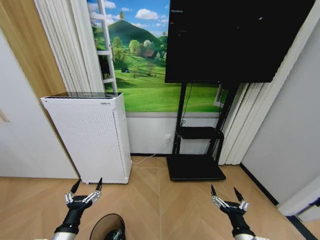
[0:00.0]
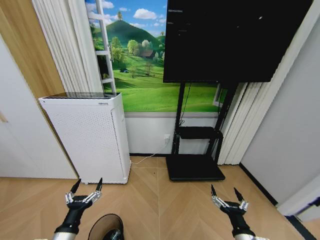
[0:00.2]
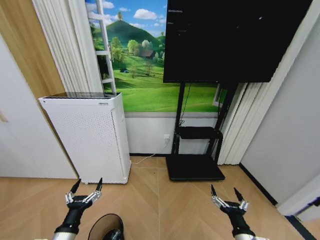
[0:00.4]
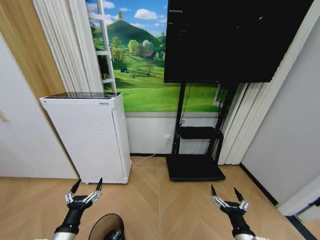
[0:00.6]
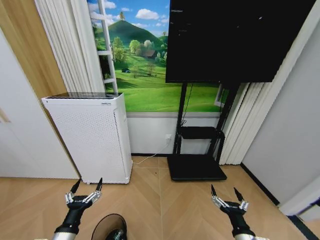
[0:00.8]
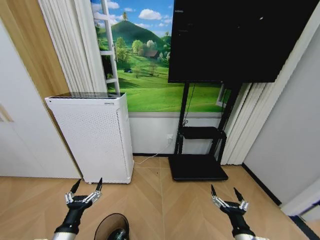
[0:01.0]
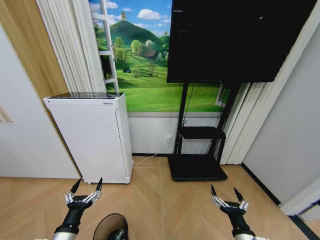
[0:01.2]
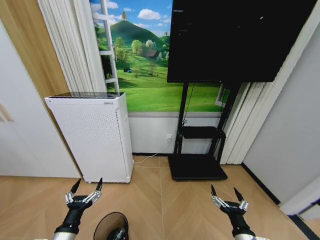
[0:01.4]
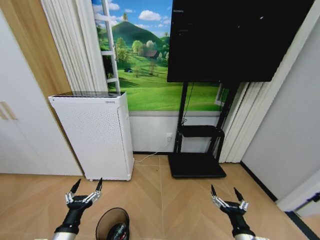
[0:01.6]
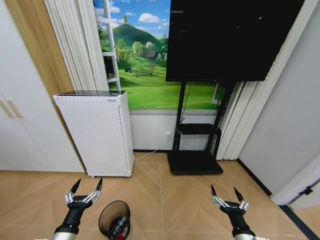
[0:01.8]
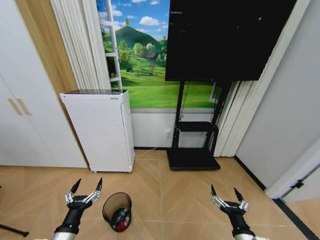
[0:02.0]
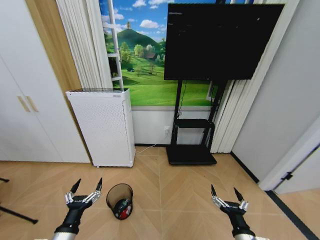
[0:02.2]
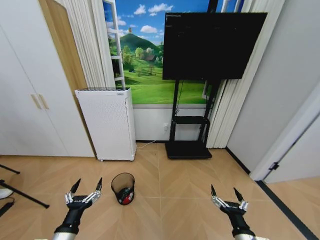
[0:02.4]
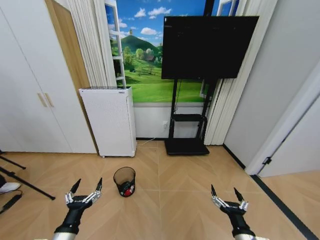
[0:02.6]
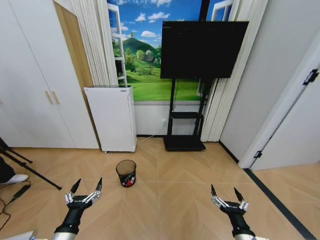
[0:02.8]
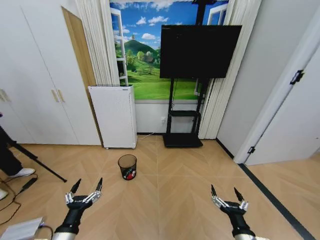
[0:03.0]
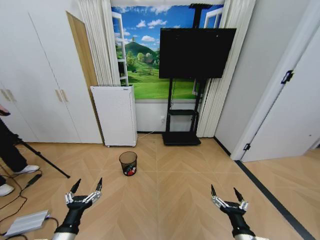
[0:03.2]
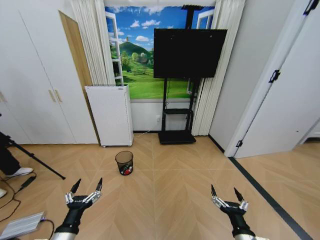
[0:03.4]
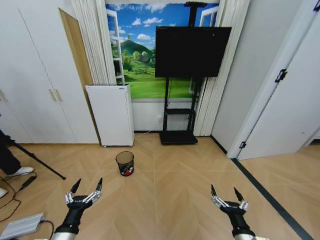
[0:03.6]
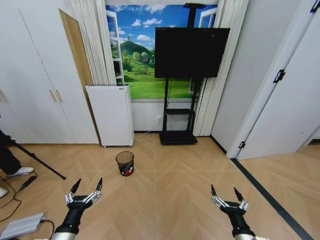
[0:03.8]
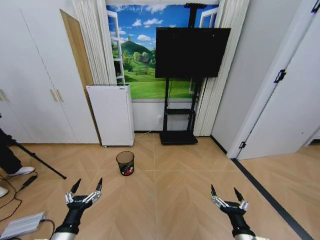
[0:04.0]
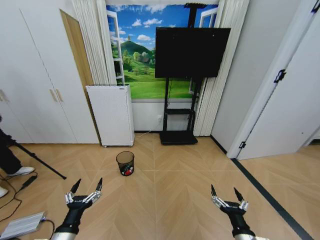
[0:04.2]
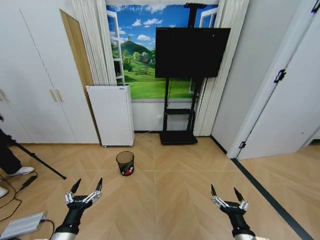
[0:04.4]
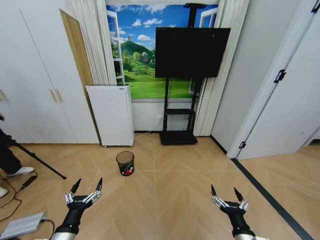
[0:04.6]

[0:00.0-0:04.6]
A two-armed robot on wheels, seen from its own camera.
Task of the whole recording: Pick up the trash bin and place the garbage on the floor into it.
0.0 to 1.6 s: Both grippers stay put.
3.0 to 4.6 s: Both grippers stay put.

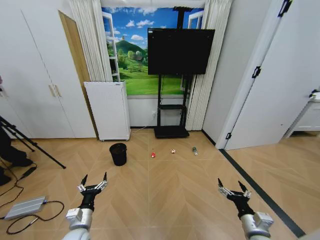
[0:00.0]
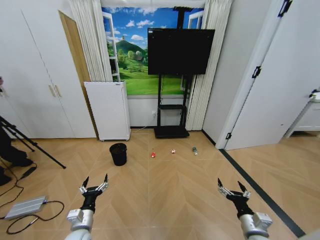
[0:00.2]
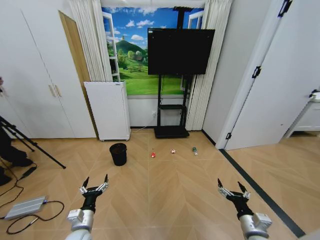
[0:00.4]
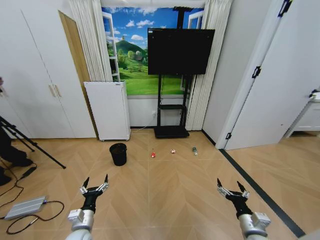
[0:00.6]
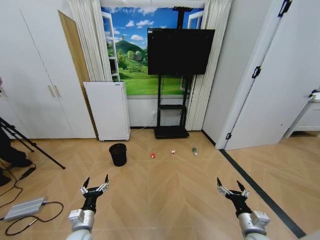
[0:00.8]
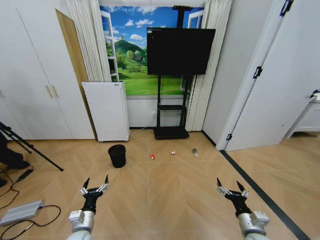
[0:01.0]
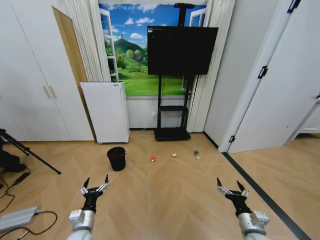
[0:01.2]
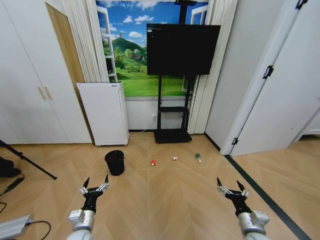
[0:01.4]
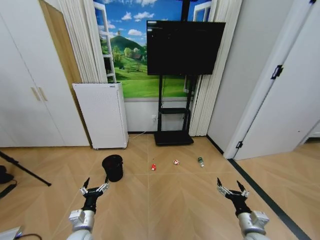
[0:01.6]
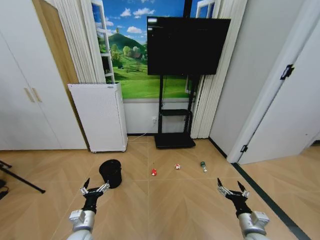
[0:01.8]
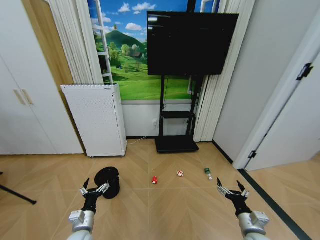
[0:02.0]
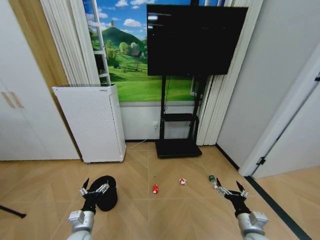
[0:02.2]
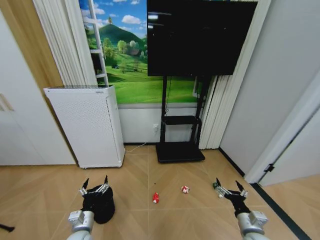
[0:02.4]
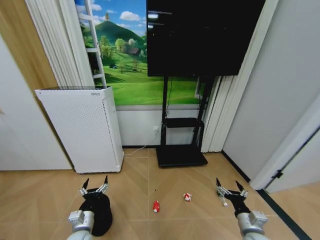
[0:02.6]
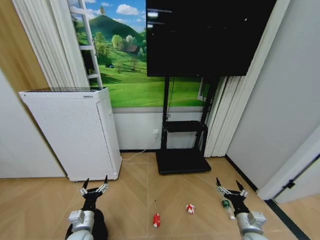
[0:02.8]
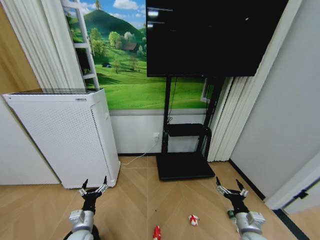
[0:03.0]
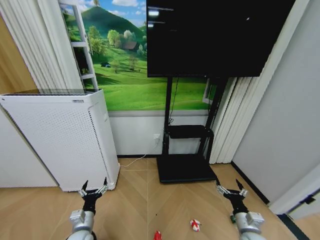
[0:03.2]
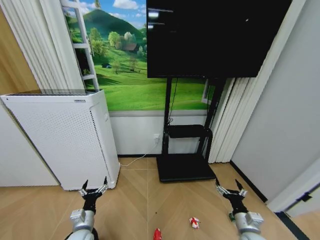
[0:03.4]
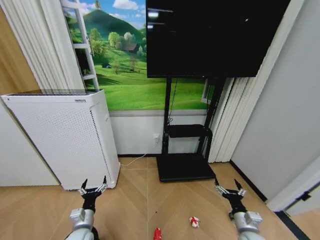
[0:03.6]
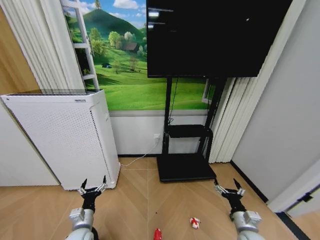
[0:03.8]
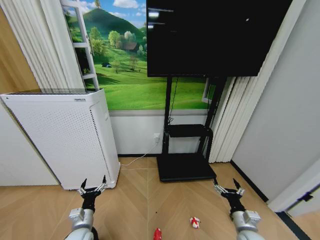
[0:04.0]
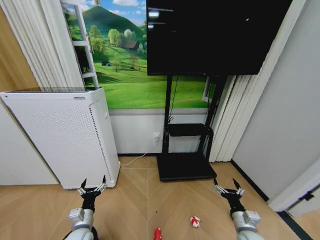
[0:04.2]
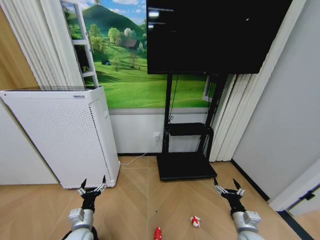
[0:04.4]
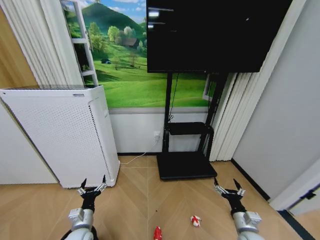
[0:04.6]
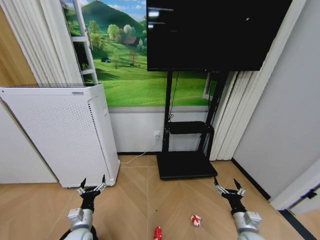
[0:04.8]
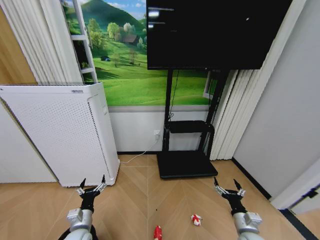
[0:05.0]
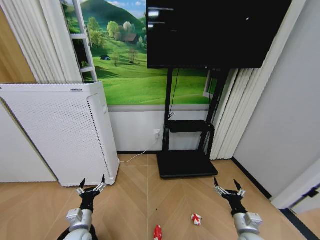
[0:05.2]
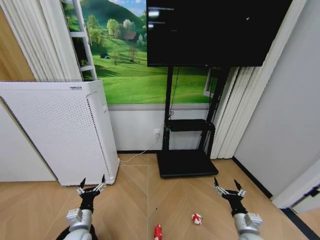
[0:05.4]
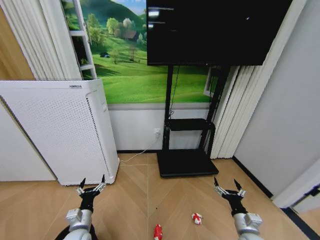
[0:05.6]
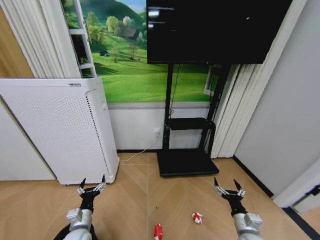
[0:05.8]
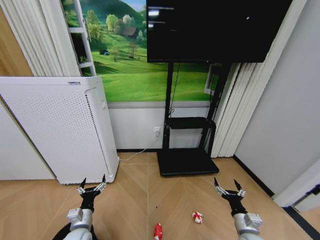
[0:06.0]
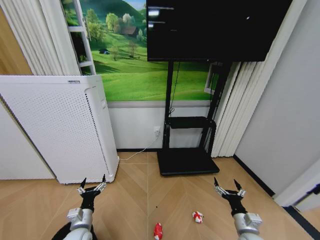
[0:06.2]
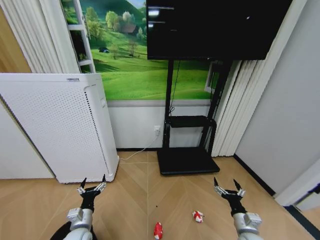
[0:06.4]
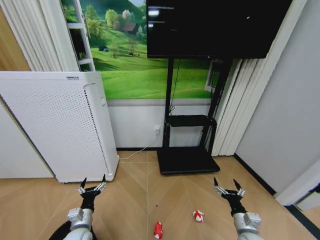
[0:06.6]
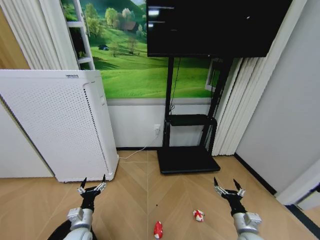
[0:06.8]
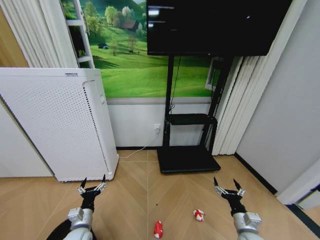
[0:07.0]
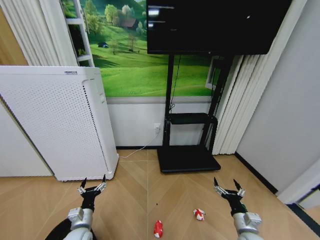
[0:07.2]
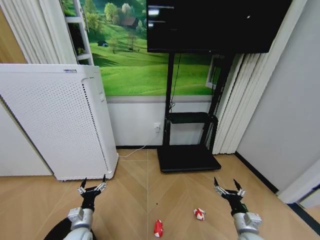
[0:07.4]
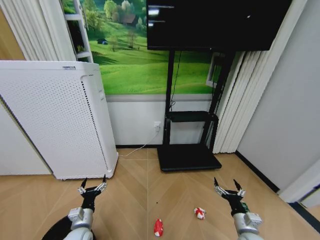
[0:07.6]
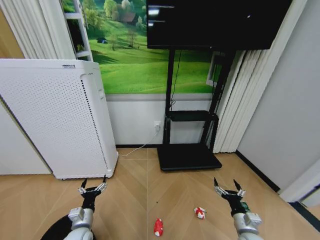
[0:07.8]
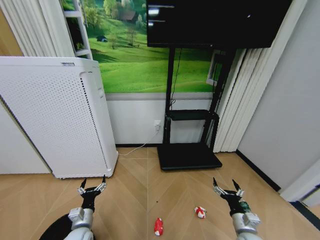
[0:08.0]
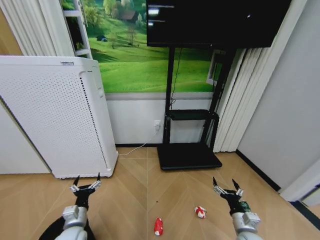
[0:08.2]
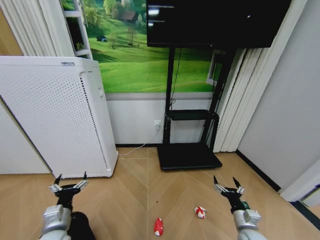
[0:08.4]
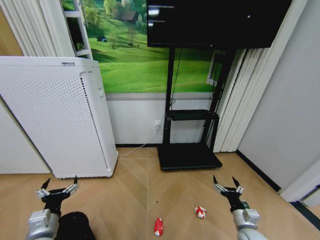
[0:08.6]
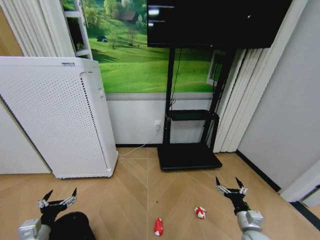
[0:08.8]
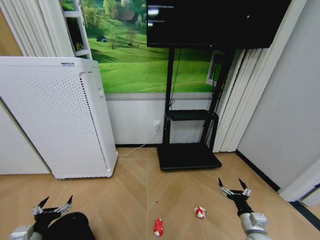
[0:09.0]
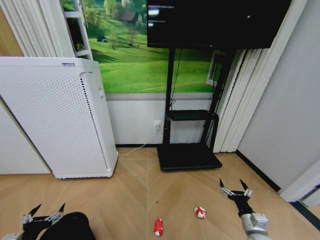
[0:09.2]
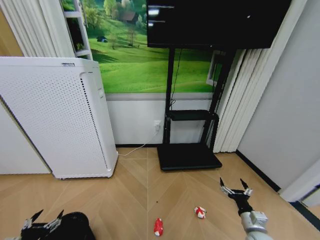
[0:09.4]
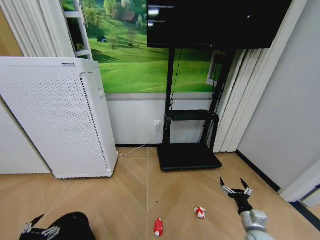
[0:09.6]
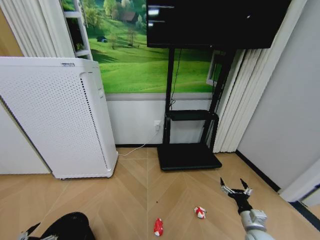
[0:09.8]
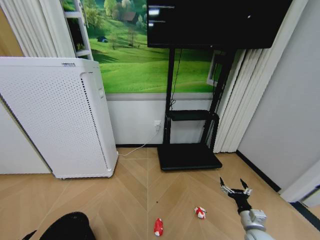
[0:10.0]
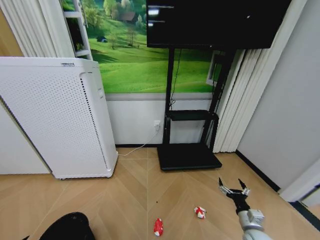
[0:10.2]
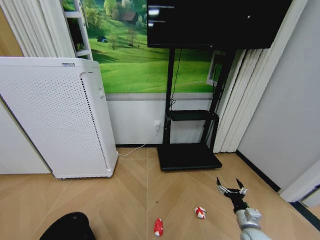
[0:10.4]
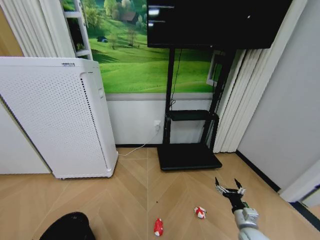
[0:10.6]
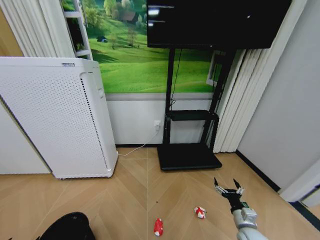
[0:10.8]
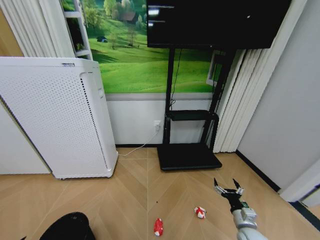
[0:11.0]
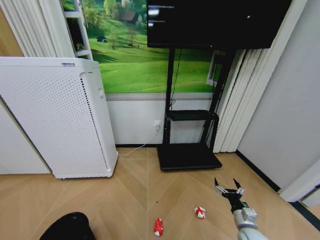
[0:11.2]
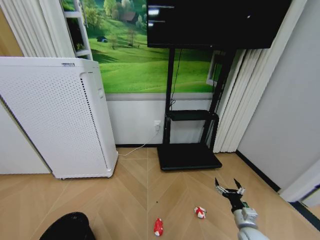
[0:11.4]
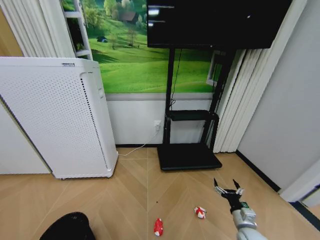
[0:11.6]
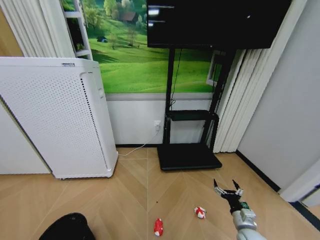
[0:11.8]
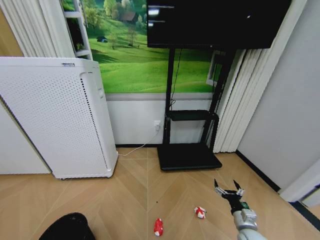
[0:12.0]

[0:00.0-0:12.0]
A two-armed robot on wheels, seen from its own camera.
Task of the whole recording: Pick up the trash bin and place the garbage on the floor into it.
3.0 to 7.6 s: Both grippers stay about where they are.
7.6 to 9.0 s: The left gripper goes some 15 cm to the left, backward and upward.
9.0 to 10.4 s: The left gripper goes approximately 10 cm backward and to the left.

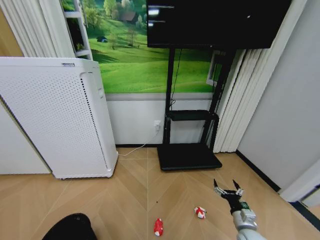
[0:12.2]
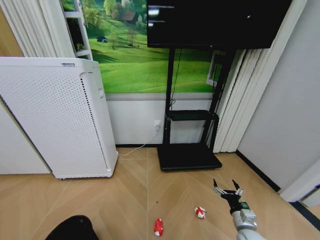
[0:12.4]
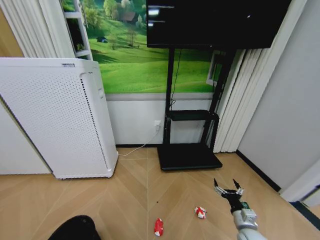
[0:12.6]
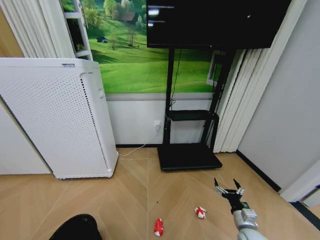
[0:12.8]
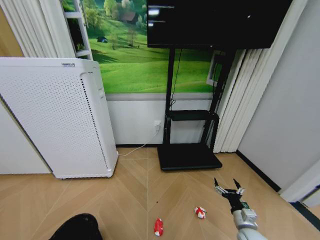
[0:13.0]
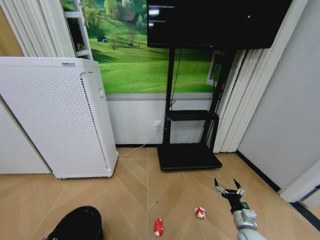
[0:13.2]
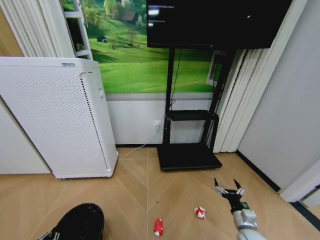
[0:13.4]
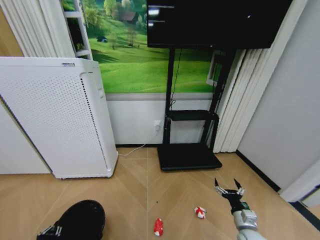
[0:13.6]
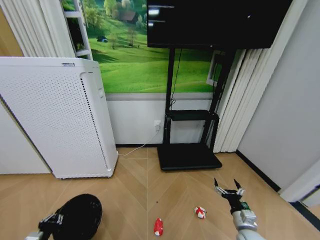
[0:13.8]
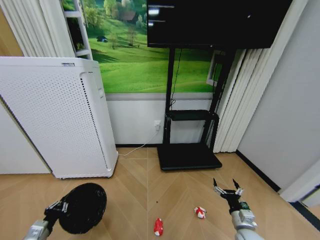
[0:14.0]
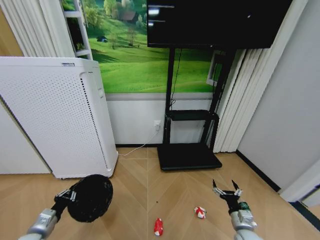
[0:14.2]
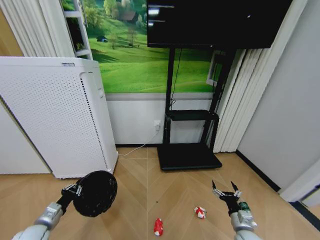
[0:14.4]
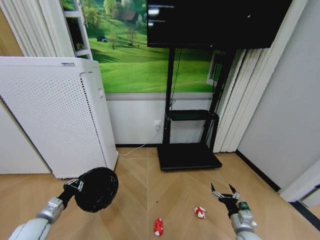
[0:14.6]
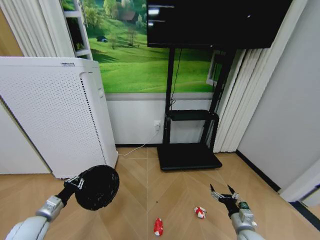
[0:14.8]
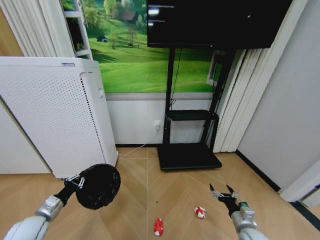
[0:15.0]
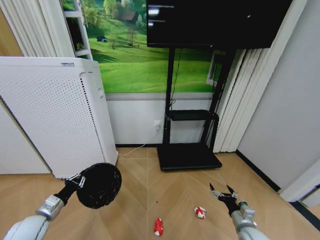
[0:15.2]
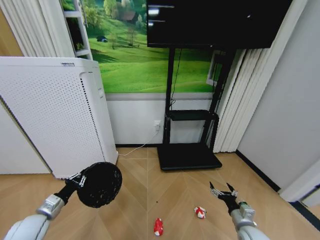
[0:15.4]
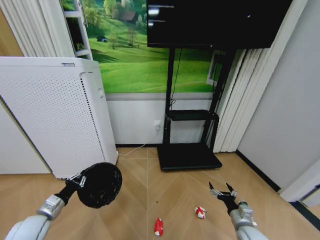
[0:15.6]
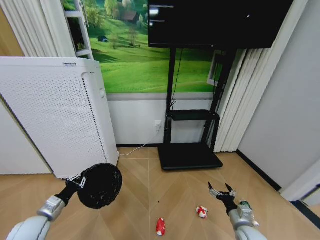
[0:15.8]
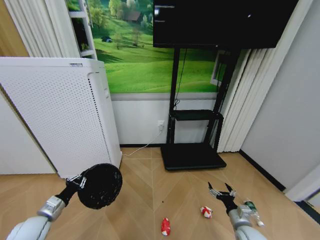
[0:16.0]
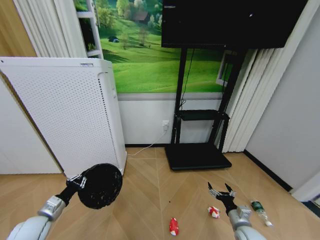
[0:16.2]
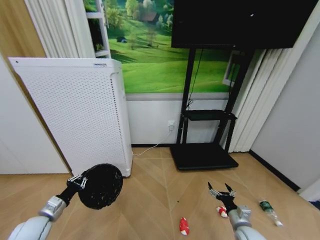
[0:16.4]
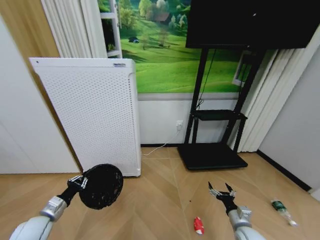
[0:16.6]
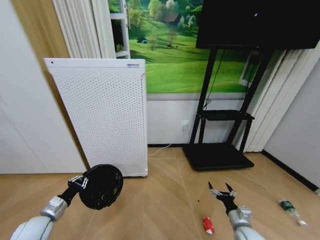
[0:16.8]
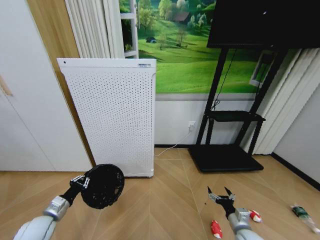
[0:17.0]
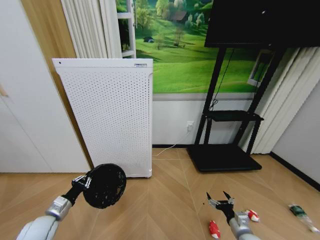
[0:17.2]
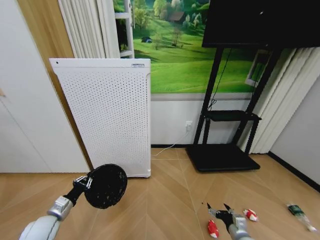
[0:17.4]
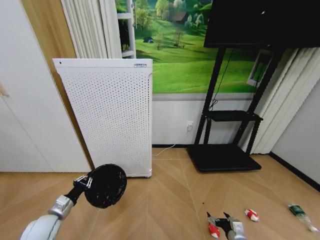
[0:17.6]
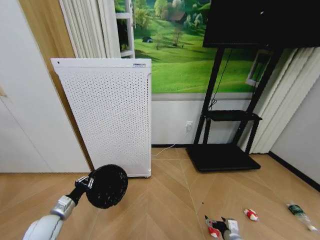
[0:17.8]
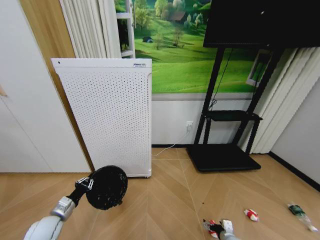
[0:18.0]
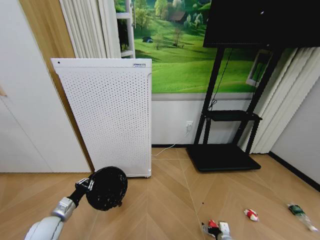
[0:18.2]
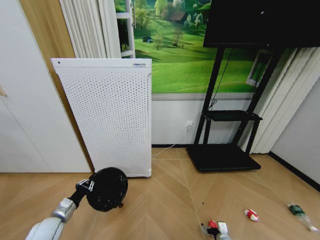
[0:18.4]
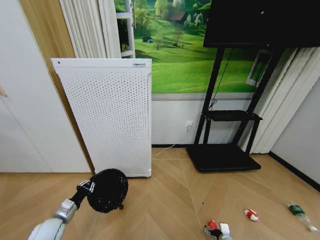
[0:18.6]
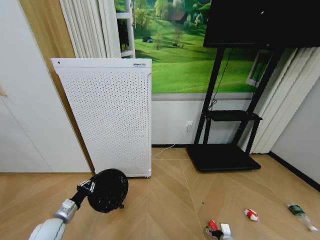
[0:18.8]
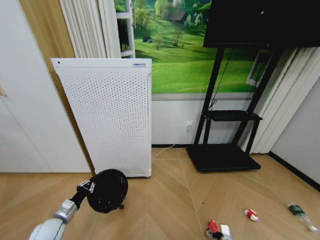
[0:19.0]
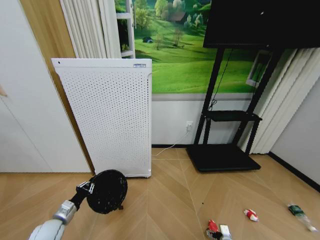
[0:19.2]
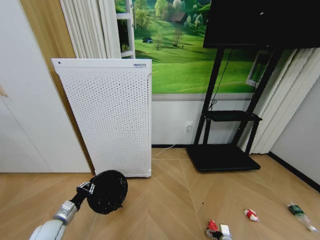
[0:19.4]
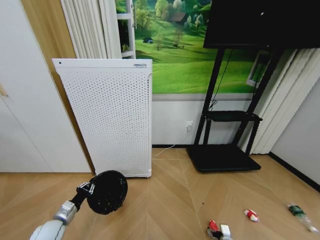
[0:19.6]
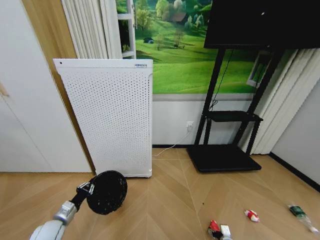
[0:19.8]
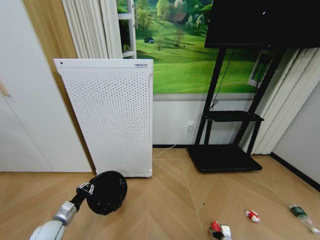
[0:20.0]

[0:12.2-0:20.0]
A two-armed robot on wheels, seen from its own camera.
Task of the whole recording: Pick up the trash bin and place the garbage on the floor into it.
12.2 to 13.8 s: The left gripper is displaced forward by about 5 cm, and closes its fingers.
13.8 to 15.4 s: The left gripper moves forward and upward, approximately 15 cm.
16.8 to 18.4 s: The right gripper travels downward by roughly 15 cm.
18.4 to 20.0 s: The right gripper closes.
